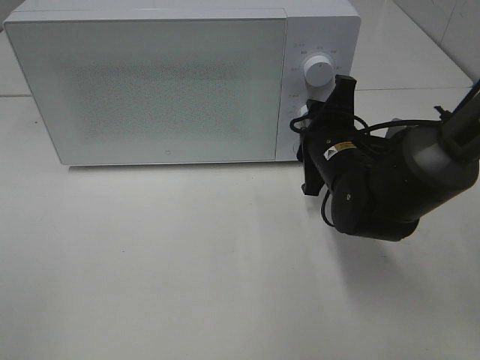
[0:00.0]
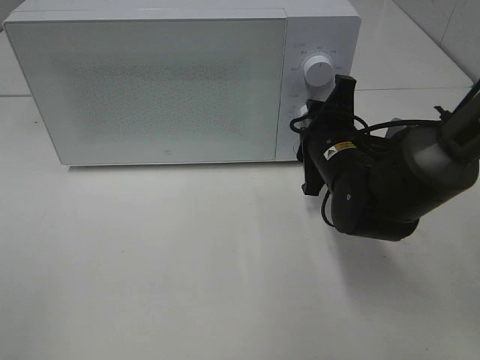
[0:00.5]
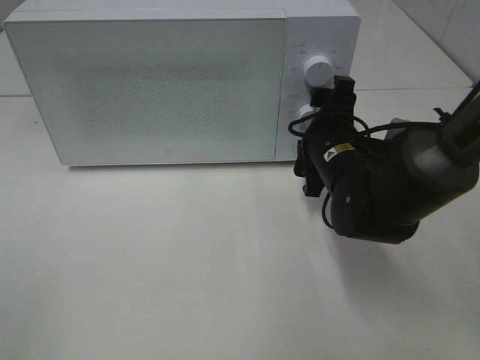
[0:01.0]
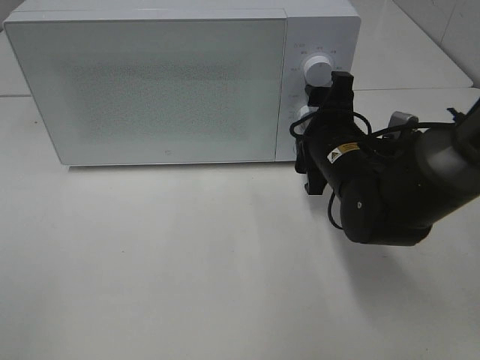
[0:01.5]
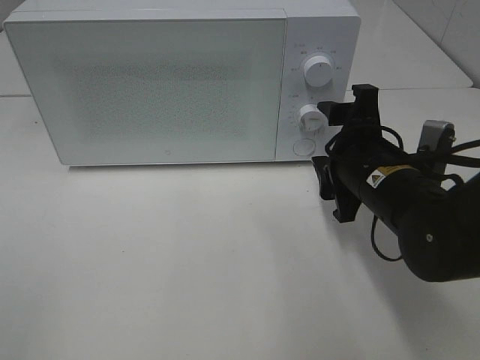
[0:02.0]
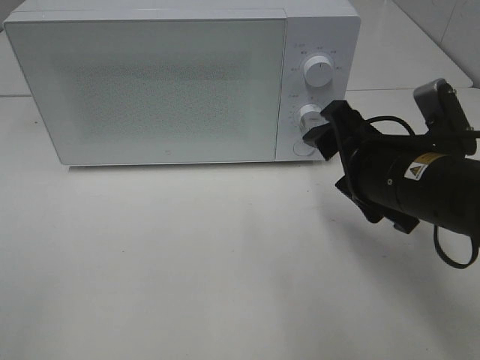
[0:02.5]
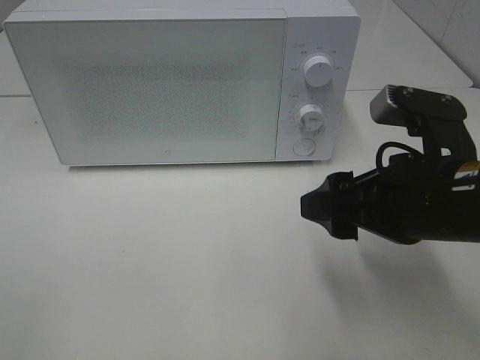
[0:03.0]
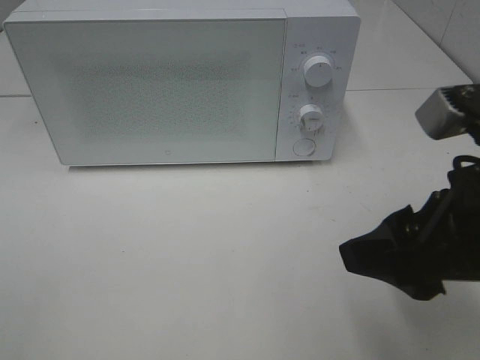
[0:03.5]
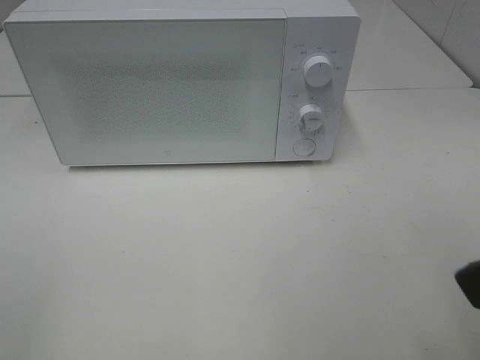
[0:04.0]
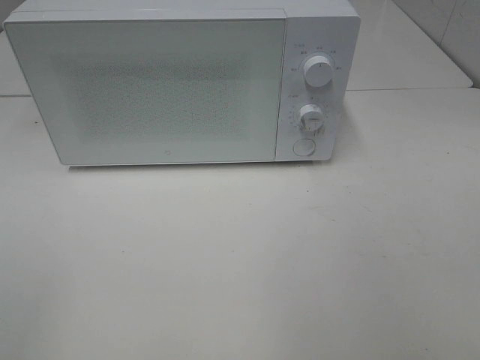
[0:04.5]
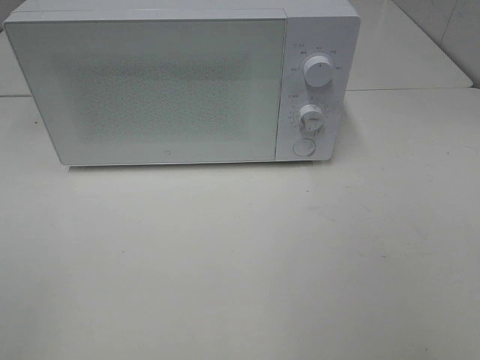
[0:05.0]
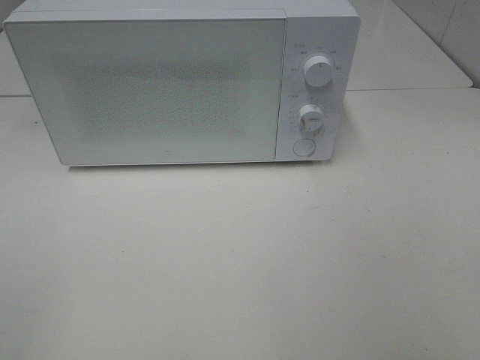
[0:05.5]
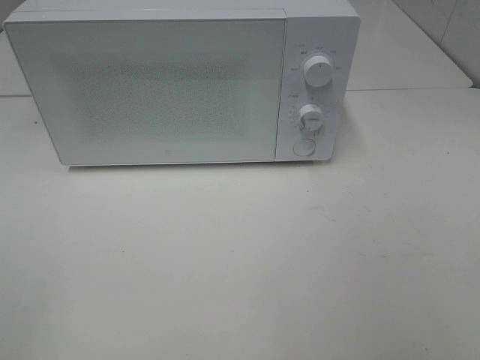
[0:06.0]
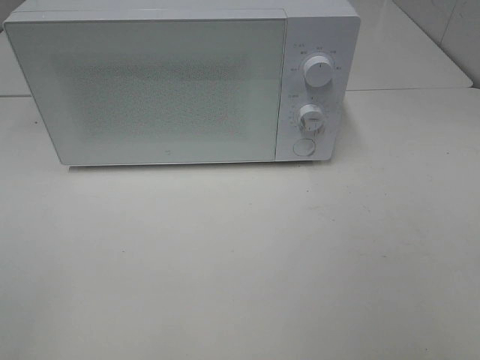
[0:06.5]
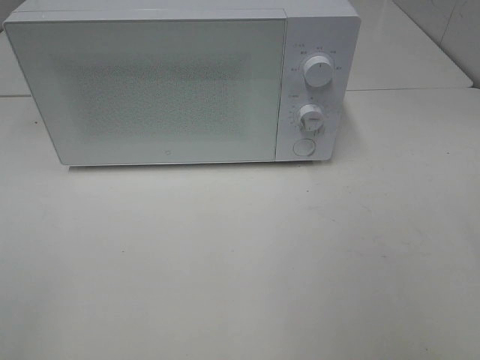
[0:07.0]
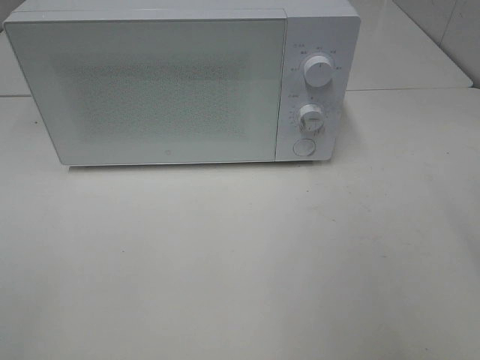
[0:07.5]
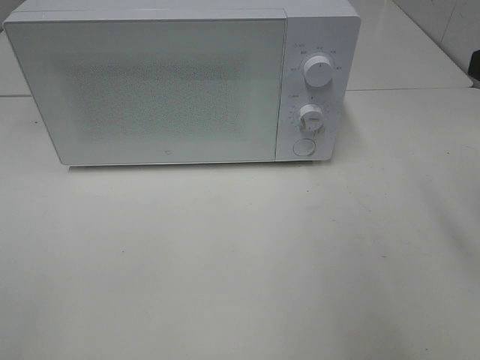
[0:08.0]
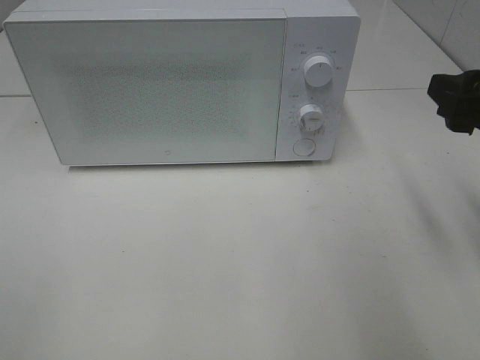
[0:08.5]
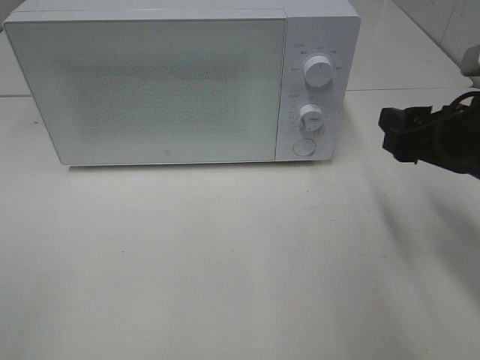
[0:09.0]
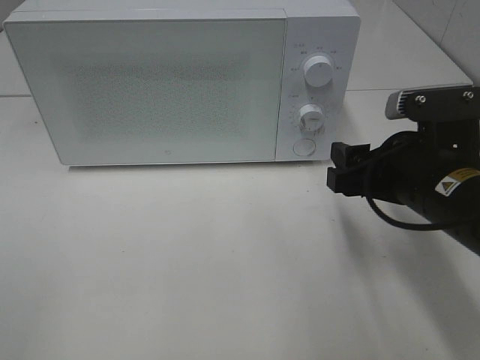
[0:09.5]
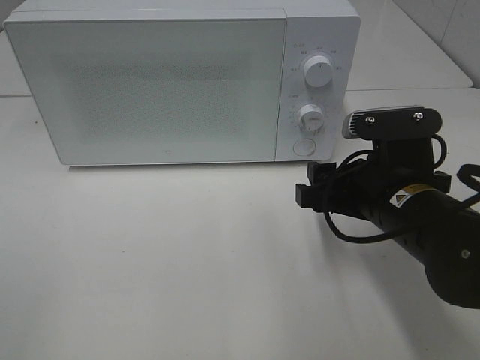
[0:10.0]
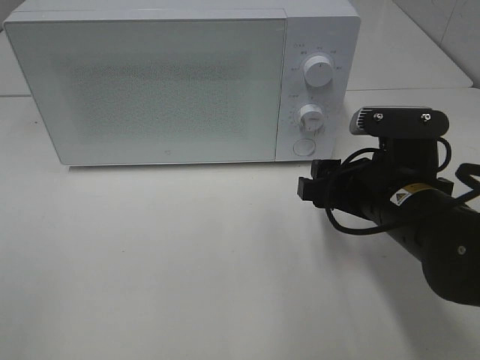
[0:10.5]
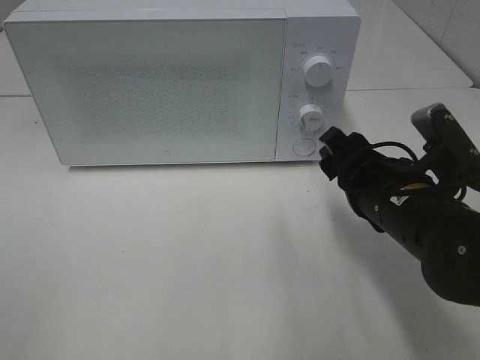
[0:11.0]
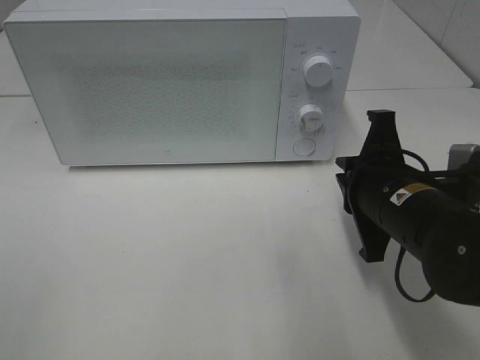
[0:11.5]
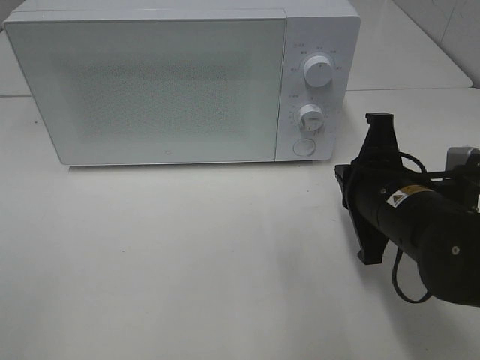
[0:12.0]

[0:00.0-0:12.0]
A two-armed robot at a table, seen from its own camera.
Task of the whole recording: Heat Sandwich.
0:00.0 to 0:02.0: The right gripper is displaced backward by some 5 cm, and opens.
0:02.0 to 0:04.0: The right gripper travels backward and upward by about 25 cm.
0:04.0 to 0:06.0: The right gripper heads backward and to the right, covering approximately 10 cm.
0:08.0 to 0:10.0: The right gripper is displaced downward and to the left by some 20 cm.
0:10.0 to 0:12.0: The right gripper closes up.

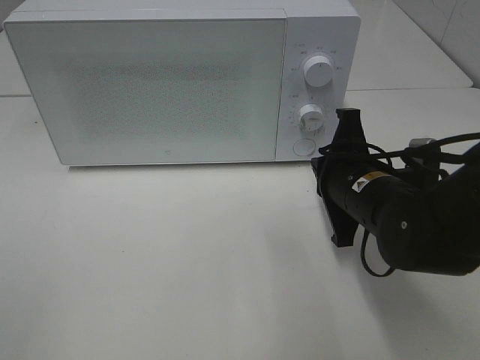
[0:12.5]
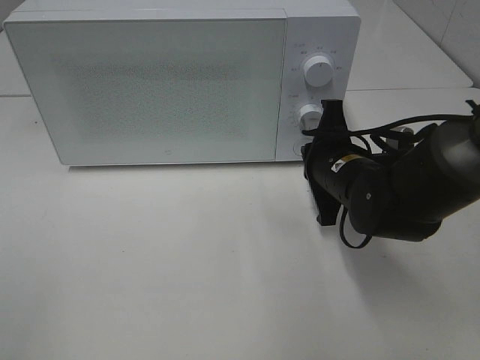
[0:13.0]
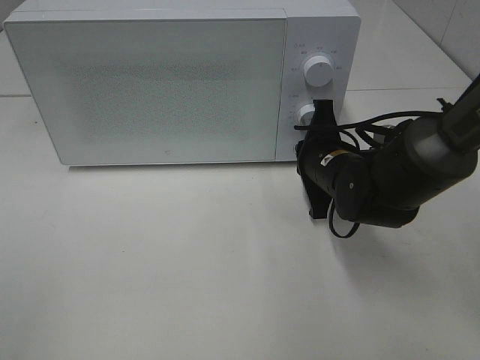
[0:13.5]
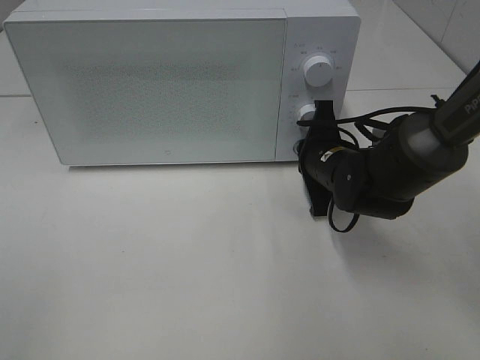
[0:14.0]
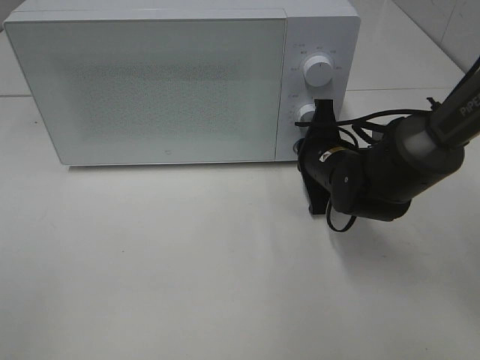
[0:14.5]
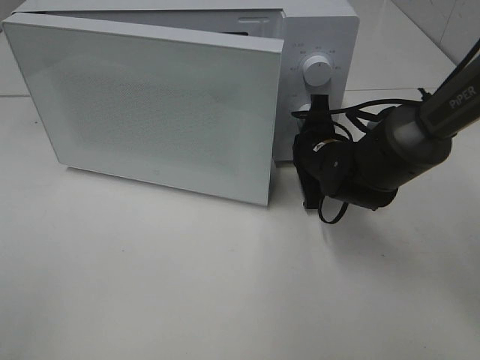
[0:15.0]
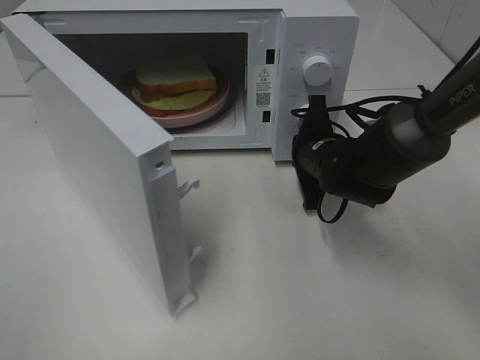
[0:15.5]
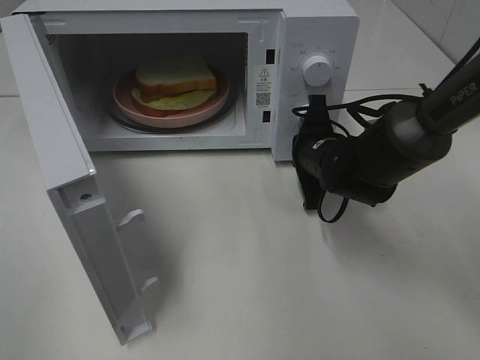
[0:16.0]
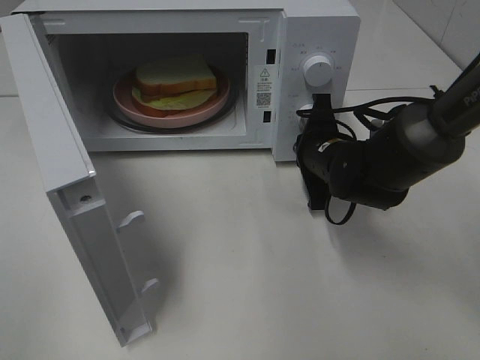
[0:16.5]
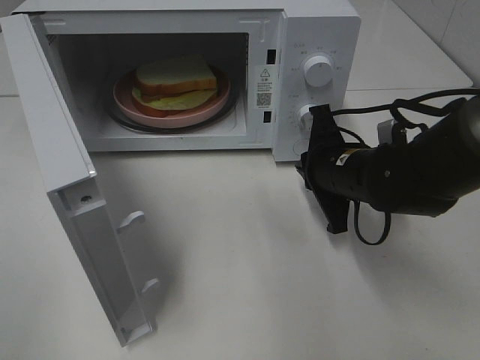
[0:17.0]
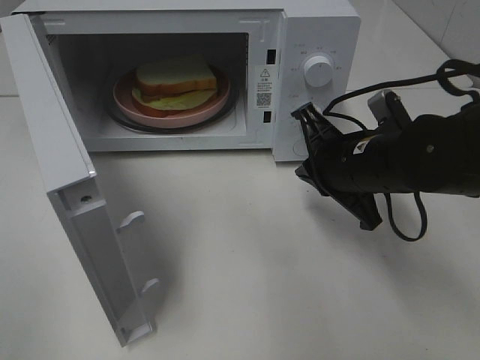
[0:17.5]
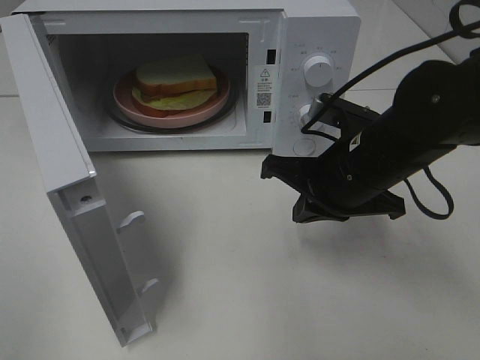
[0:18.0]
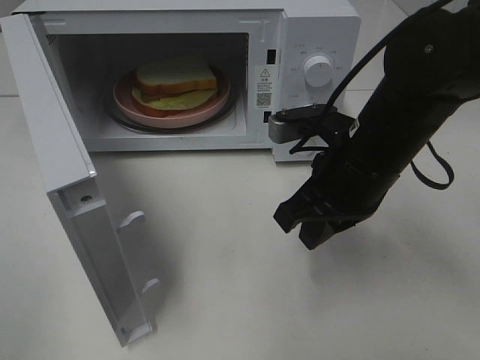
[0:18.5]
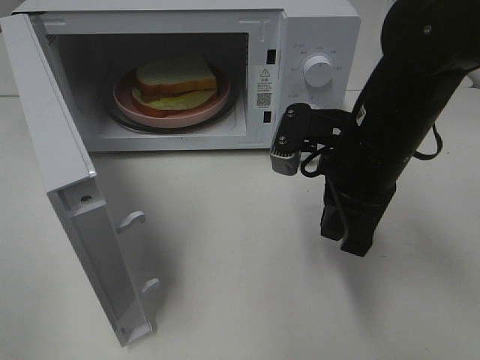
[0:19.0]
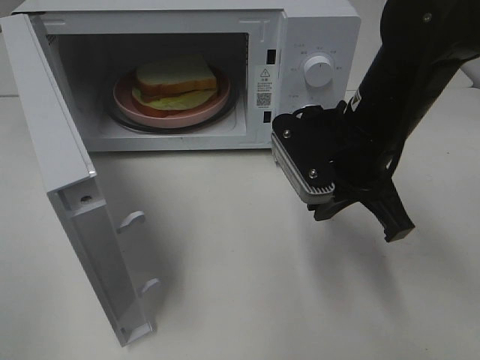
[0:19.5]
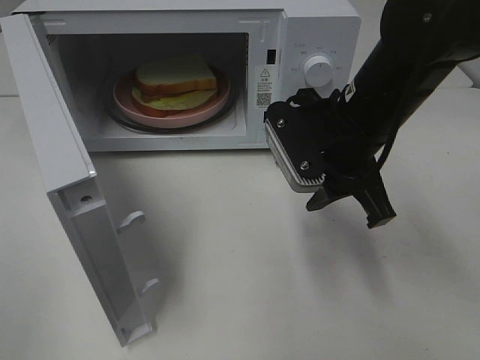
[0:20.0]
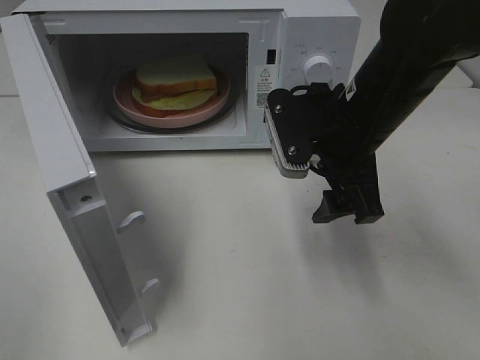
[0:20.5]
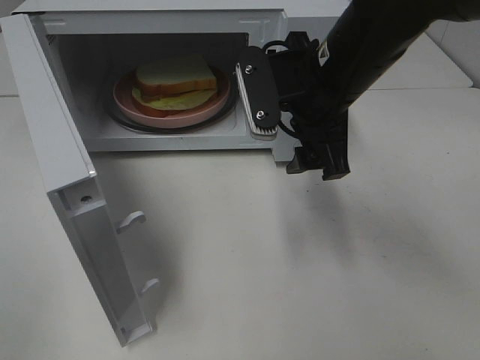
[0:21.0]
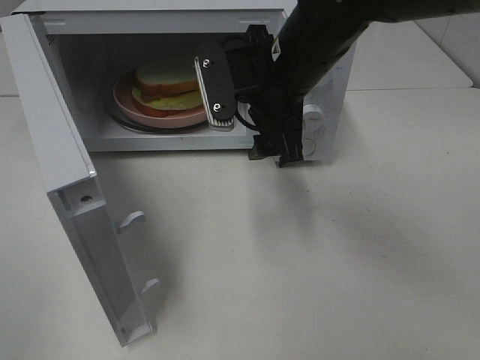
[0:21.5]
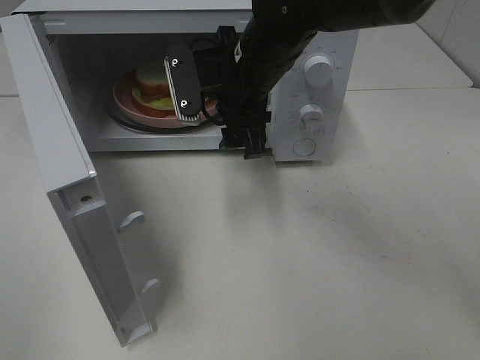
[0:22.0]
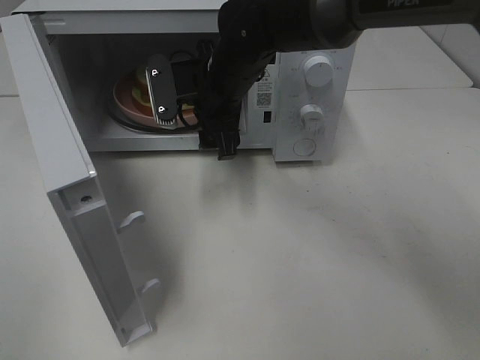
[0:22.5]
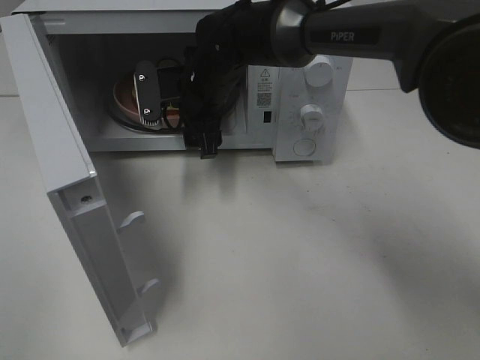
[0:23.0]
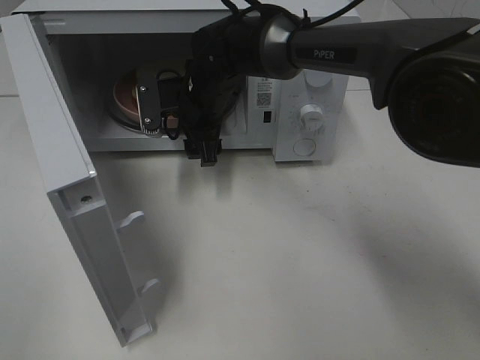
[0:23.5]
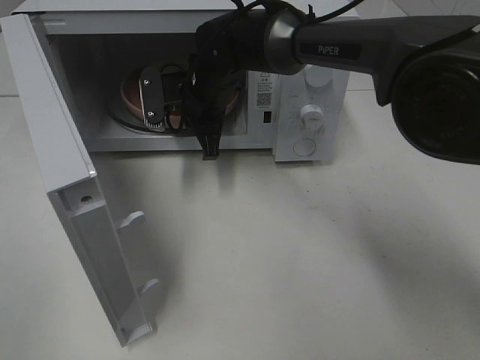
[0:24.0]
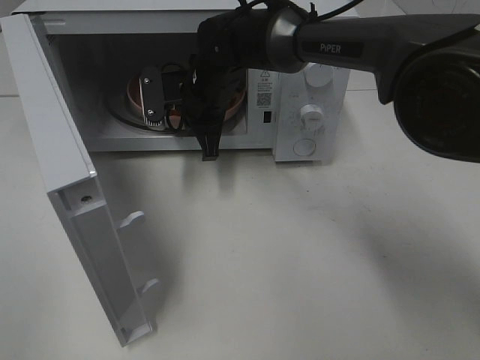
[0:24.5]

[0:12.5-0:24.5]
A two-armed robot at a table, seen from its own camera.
Task of the whole recording: Heat Sandwich.
Step, 0:12.5 to 0:16.5: Right hand: press the switch.
0:12.5 to 0:14.5: The right gripper is displaced forward by some 10 cm.
0:16.5 to 0:18.5: The right gripper goes some 15 cm backward and upward.
0:18.5 to 0:20.5: The right gripper opens.
0:20.5 to 0:22.5: The right gripper goes some 15 cm to the left and forward.
0:22.5 to 0:24.5: The right gripper moves some 5 cm, and closes up.

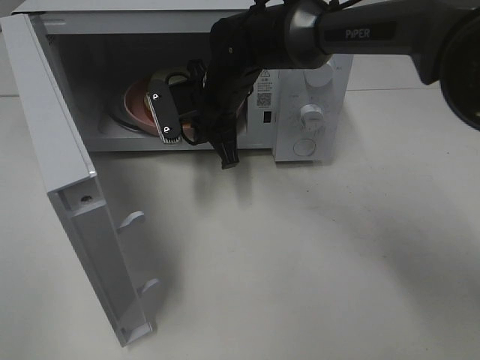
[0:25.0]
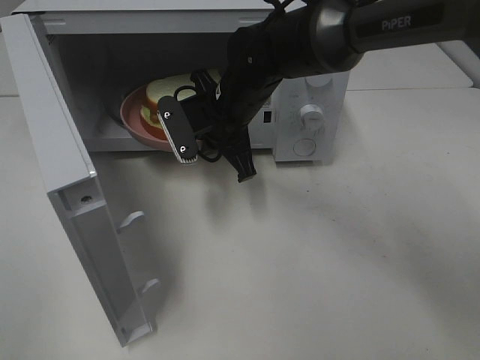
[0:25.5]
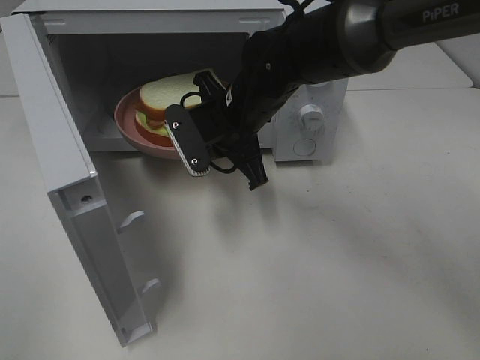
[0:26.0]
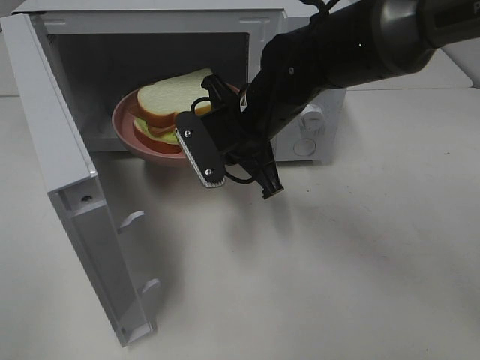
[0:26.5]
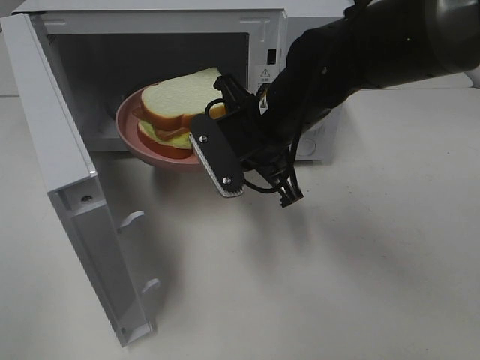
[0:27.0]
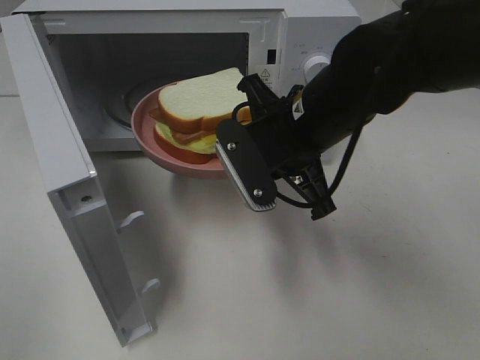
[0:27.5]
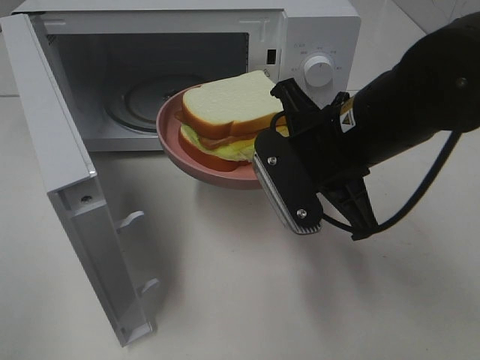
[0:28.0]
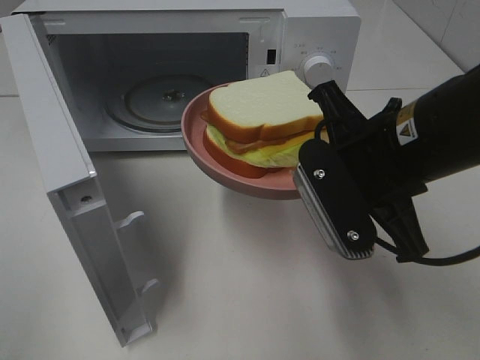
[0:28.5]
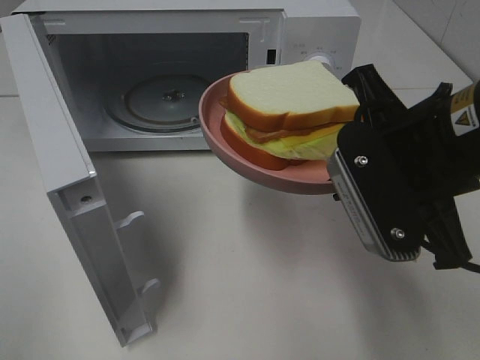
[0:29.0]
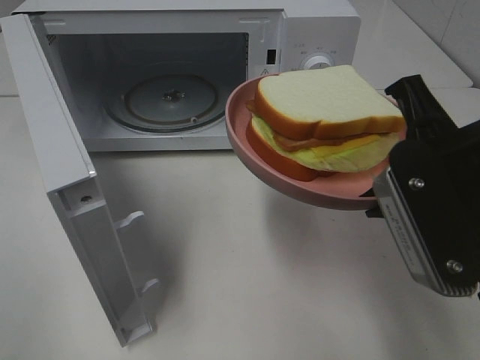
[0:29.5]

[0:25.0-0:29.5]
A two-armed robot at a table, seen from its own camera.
Task of the whole recording: Heat Sandwich.
0:25.0 to 0:27.0: The right gripper shifts approximately 10 cm backward and to the right.
0:27.0 to 0:29.5: The right gripper moves backward, to the right and upward, roughly 20 cm.
